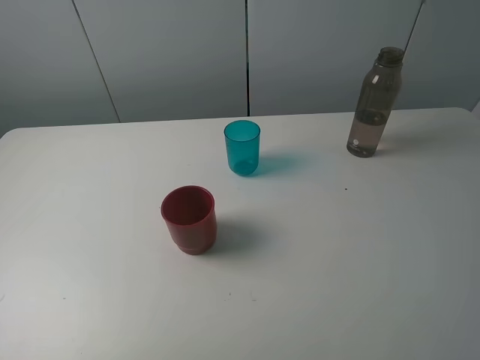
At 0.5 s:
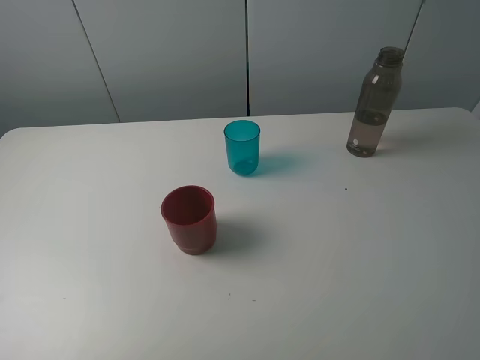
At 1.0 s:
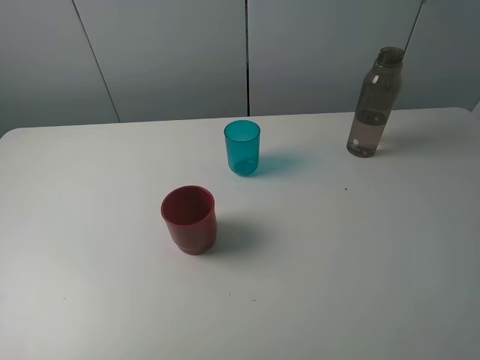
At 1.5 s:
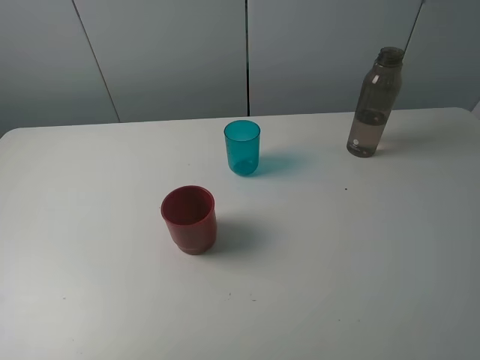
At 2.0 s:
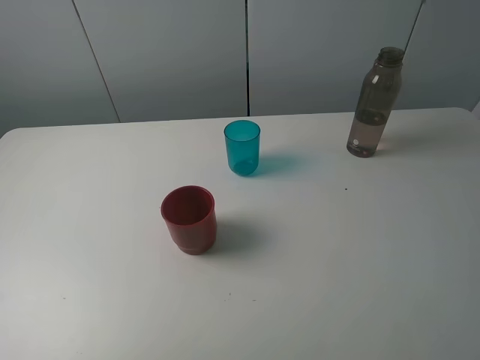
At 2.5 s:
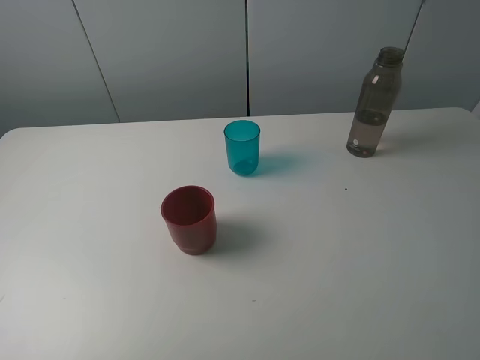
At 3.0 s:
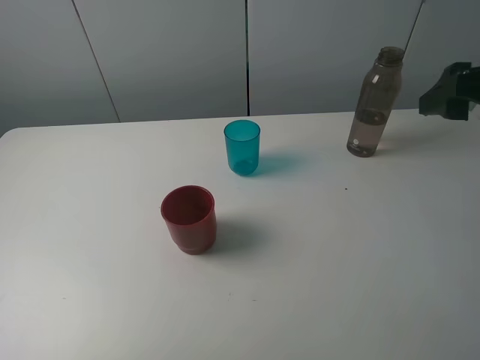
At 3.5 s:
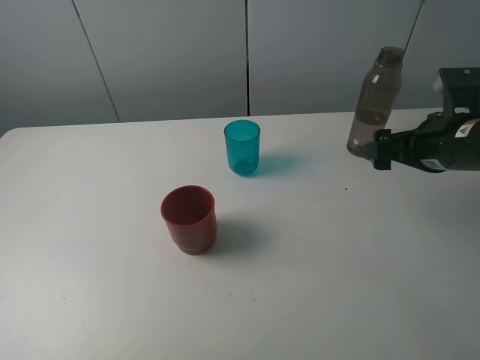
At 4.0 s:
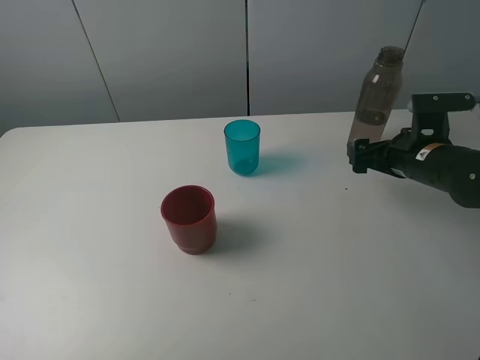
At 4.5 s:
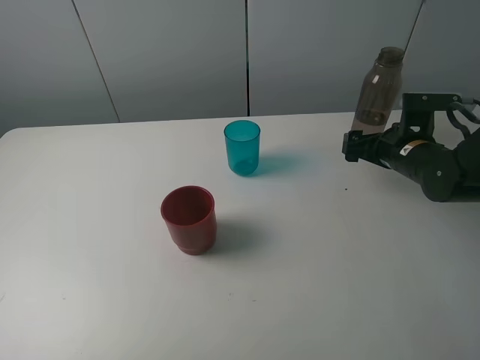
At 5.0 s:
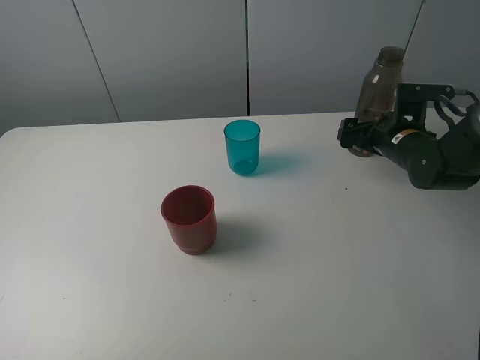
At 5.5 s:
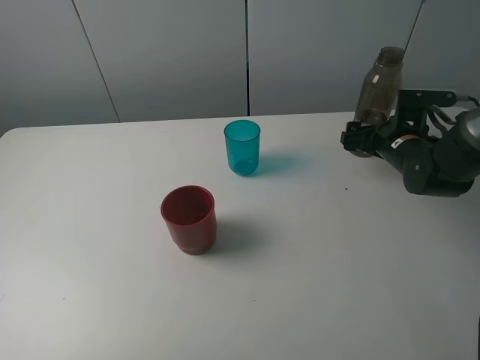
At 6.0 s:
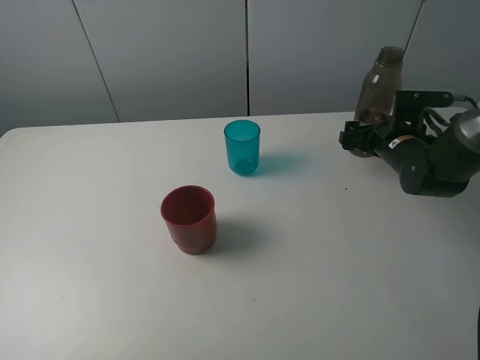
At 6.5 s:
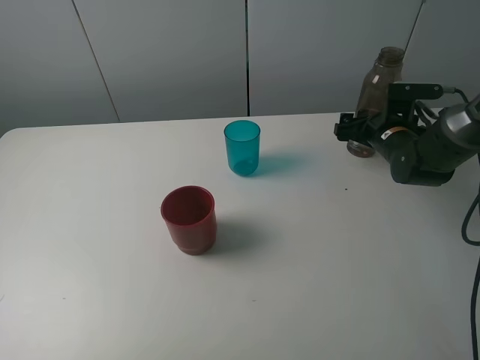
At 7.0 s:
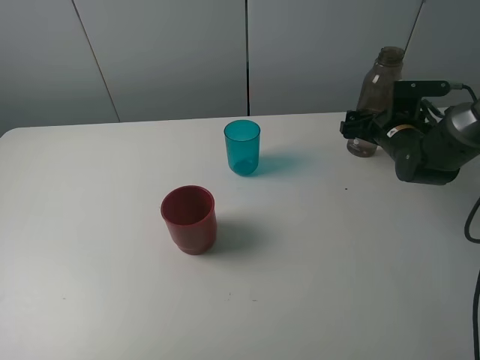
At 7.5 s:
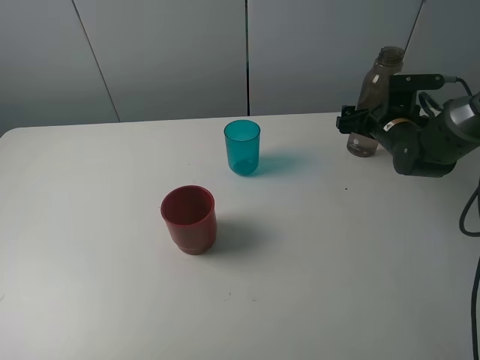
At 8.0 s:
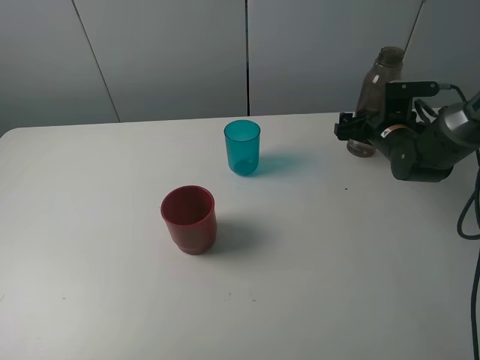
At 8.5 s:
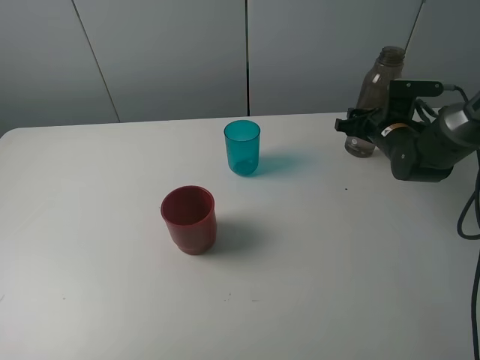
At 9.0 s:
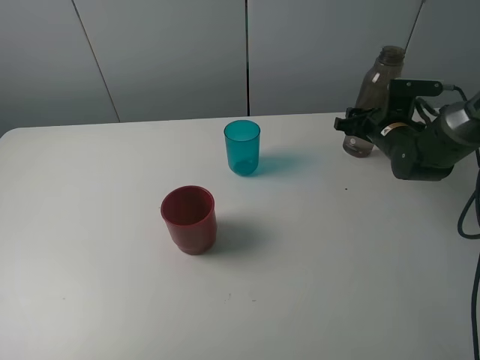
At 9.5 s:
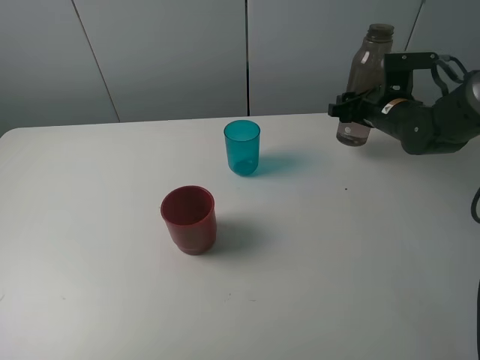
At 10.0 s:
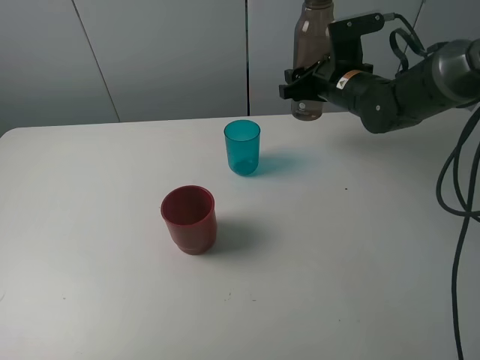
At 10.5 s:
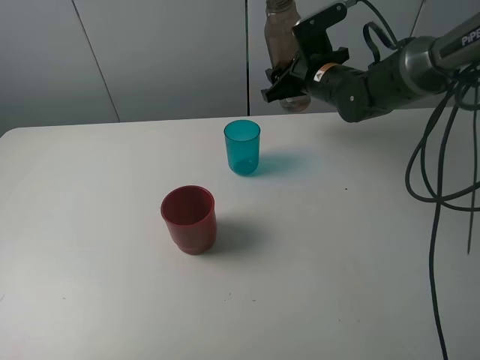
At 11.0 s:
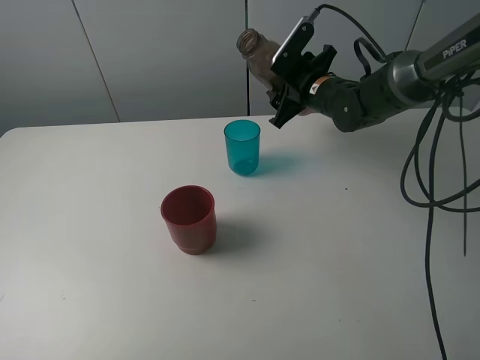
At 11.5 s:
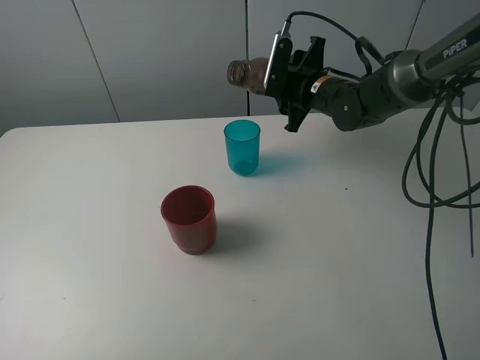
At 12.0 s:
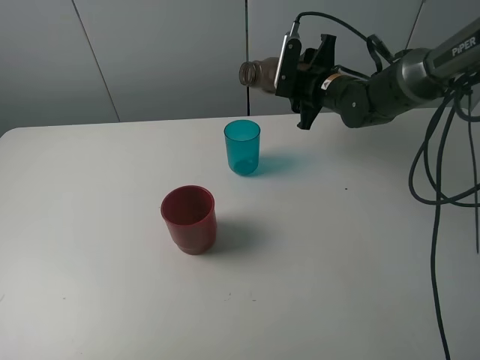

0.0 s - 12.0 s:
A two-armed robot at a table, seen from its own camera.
Task of the whole recording: pick up the bottle and pour water into the cup, then pick up the cup containing water and pour it into another cup.
Step, 0.0 s - 8.5 s: Grasp the brown bottle with the right gripper.
0.0 s - 2.0 s: The two grippers keep their place.
2.0 s - 4.0 s: The right gripper is displaced forward and downward by some 35 cm.
4.0 s - 6.0 s: The right gripper shifts about 5 cm forward.
6.0 s - 8.0 s: The grippers move only a little.
8.0 s - 10.0 s: The right gripper travels to the left and upward by some 15 cm, and closes its fingers.

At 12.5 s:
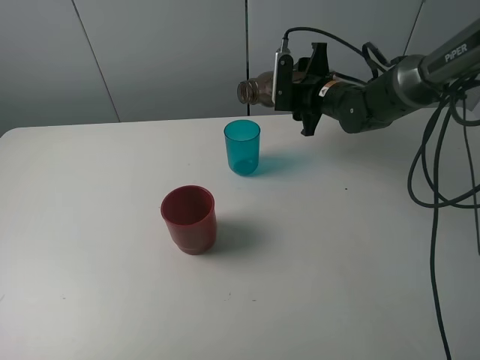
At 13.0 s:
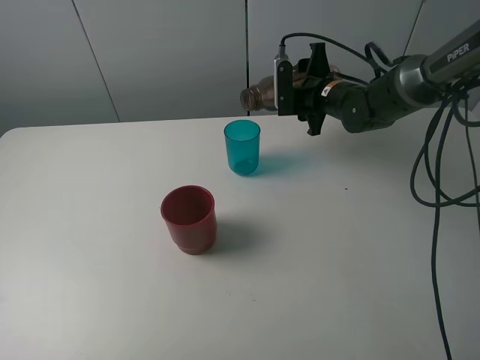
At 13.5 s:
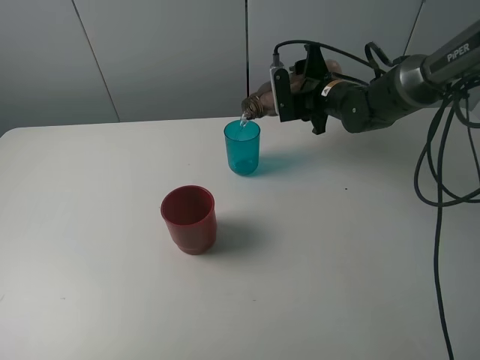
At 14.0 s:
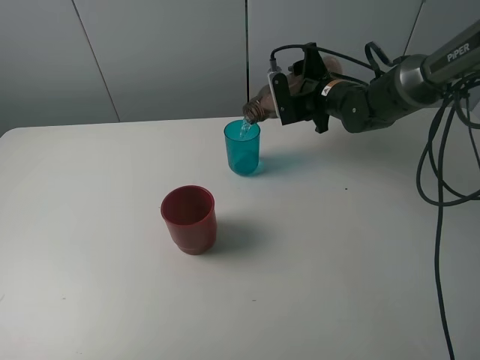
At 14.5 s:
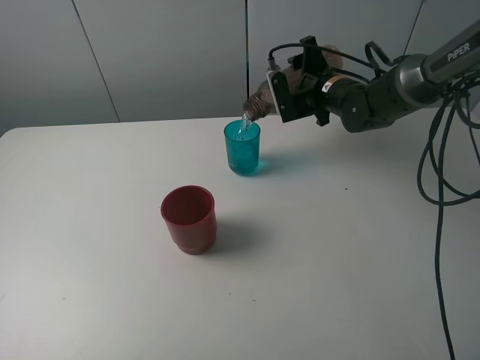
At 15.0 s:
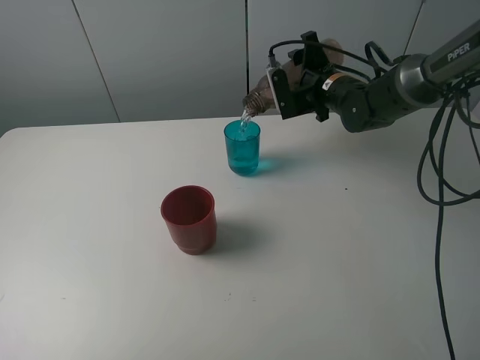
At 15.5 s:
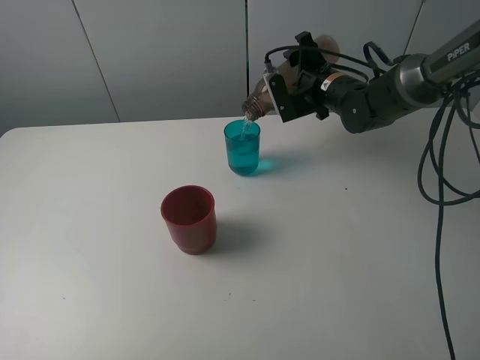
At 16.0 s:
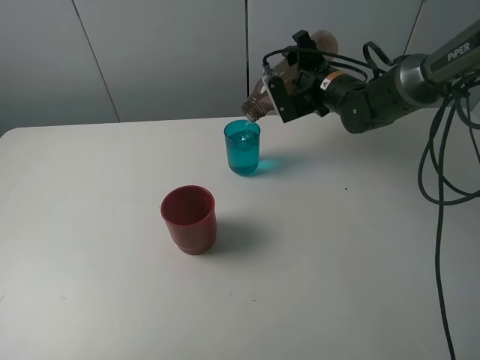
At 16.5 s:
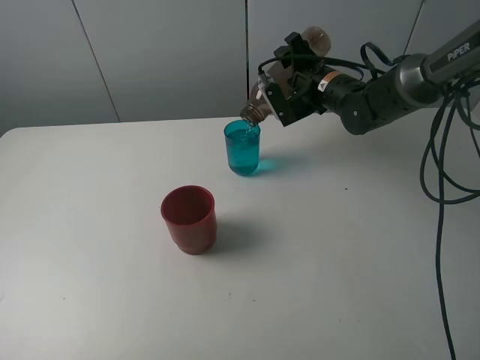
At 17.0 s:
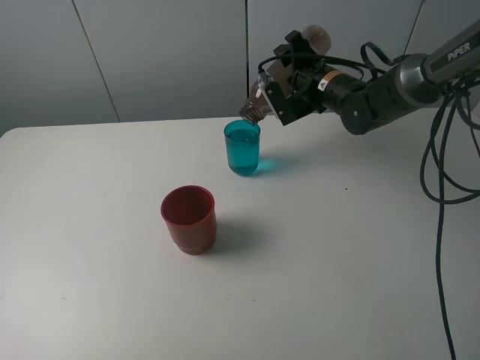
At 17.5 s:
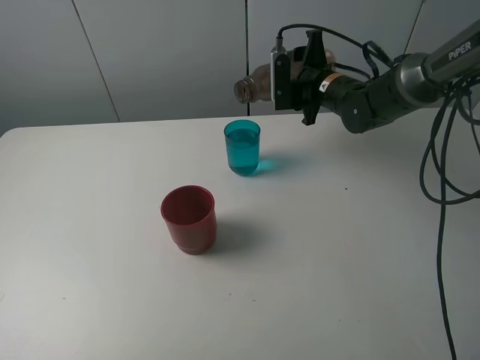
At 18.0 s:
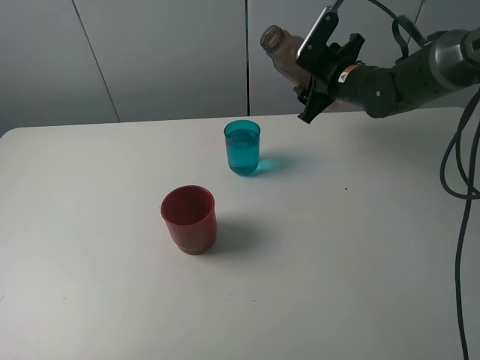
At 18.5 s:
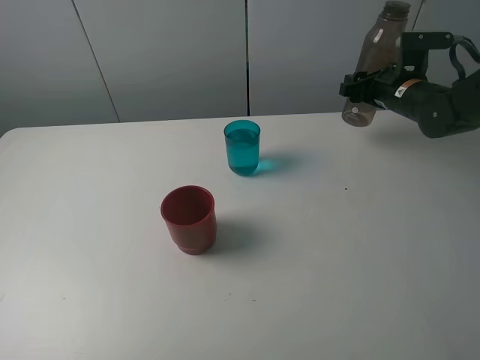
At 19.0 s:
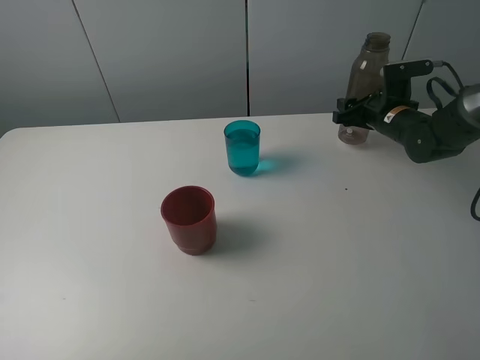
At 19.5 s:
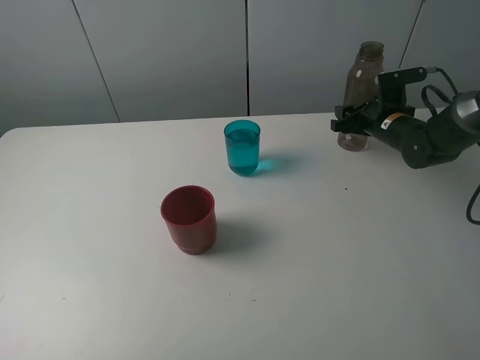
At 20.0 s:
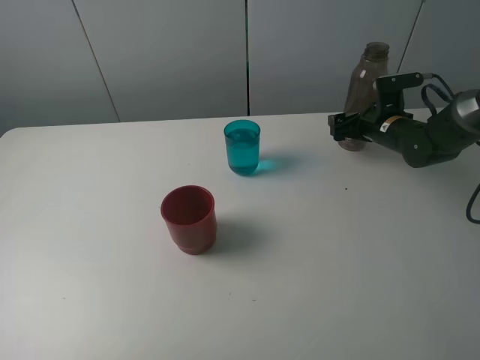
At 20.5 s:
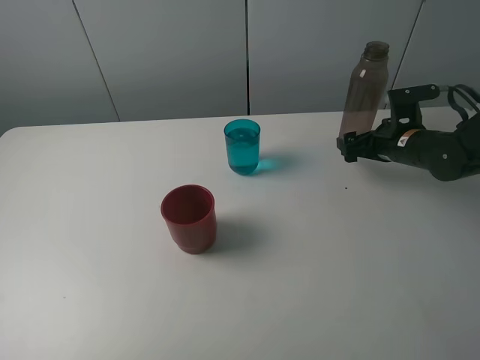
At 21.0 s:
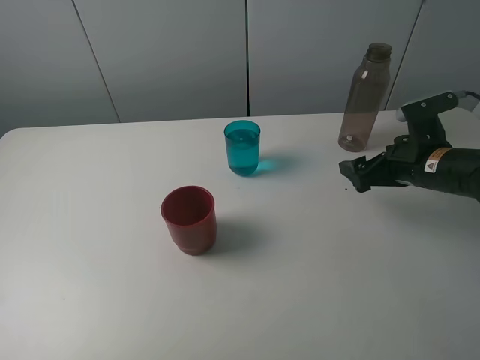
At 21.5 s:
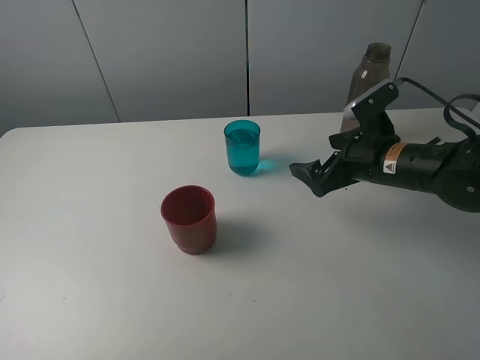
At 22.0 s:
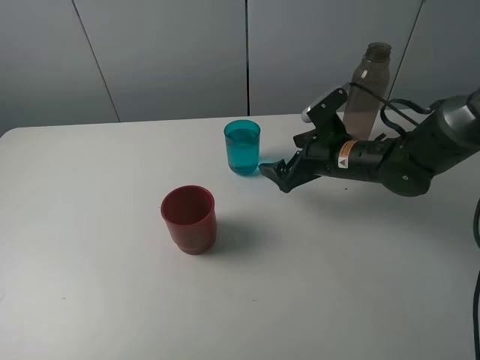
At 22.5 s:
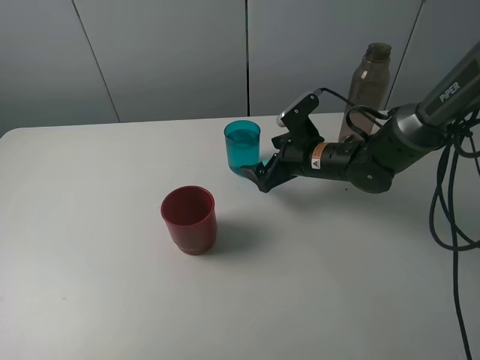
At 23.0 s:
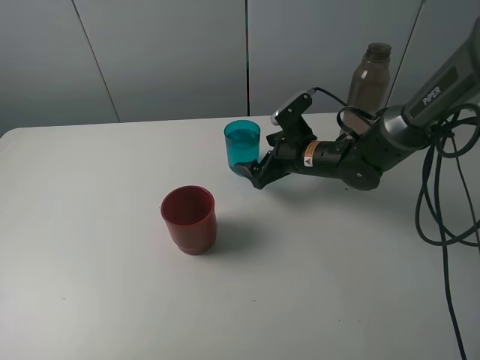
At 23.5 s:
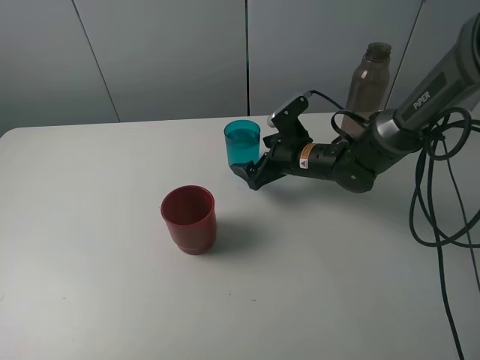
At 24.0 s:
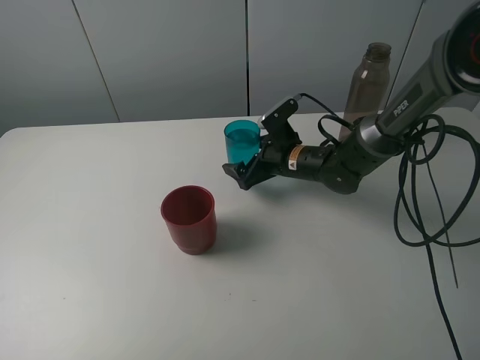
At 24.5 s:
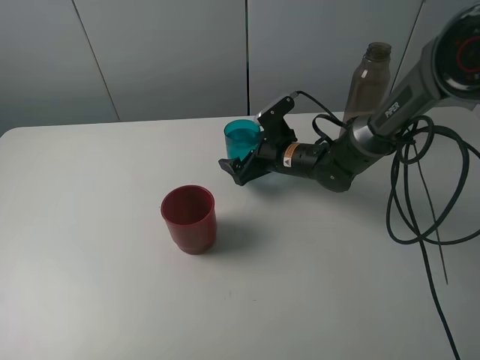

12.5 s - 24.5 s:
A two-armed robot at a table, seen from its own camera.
Task of the whole recording: pick up the bottle and pour water into the cup, then pick up the cup containing water and pour it into another cup.
Step, 12.5 s - 17.0 s: Pour water from brown bottle to blue cup with the right gripper.
Step, 17.5 s - 20.5 s: Place the brown bottle with the right gripper.
14.5 s - 16.5 s: The grippers make only small movements.
16.5 s - 18.5 s: The right gripper moves to the right, about 10 cm.
18.5 s - 20.5 s: The right gripper is displaced backward by about 5 cm, and opens its fingers.
20.5 s - 22.5 s: The right gripper travels to the left by some 15 cm.
22.5 s - 24.5 s: The right gripper changes place by some 5 cm.

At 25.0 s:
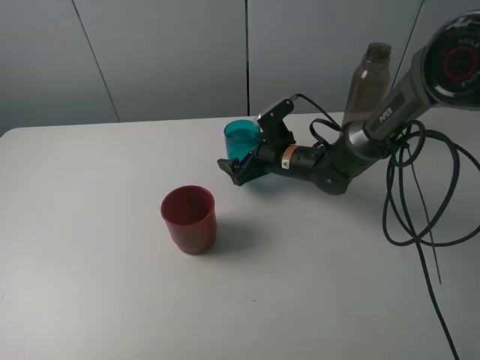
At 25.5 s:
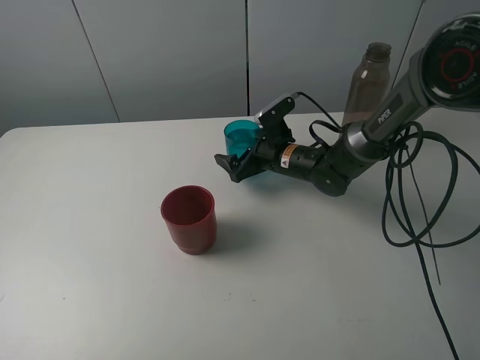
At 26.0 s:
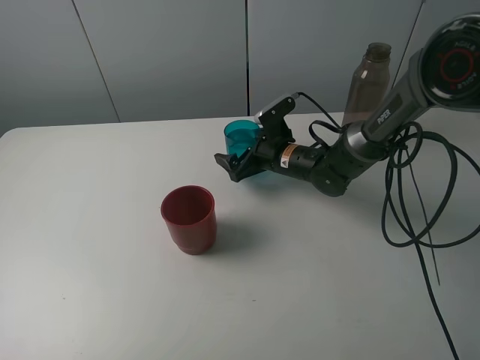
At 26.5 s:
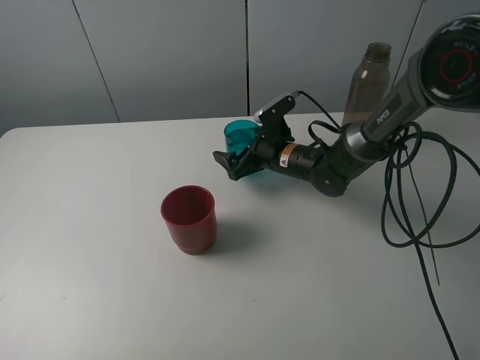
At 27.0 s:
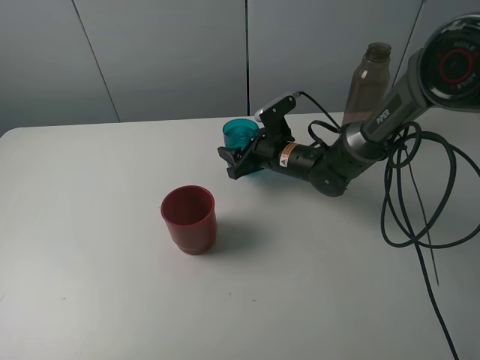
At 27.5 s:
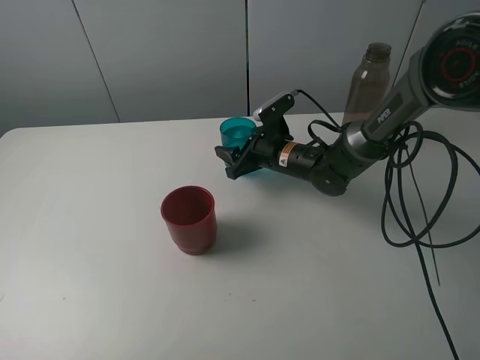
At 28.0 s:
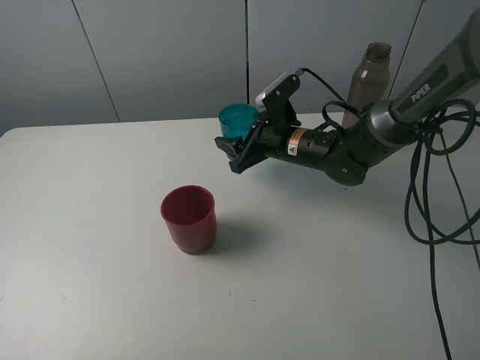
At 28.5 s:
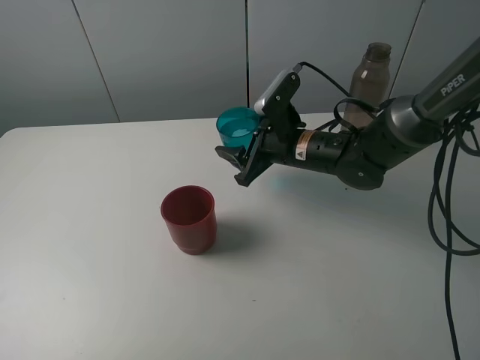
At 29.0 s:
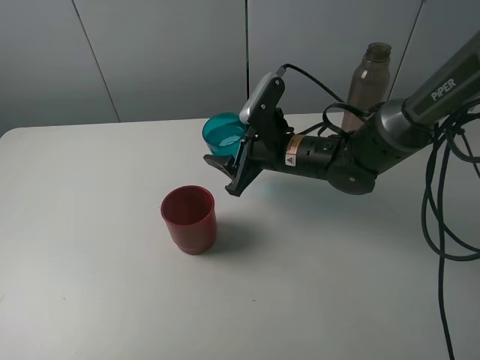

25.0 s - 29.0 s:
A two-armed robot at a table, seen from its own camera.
Task of the whole recording: pick up the bottle and pour water into the cup, then pick up the cup containing water and pour it into another cup.
25.0 s - 27.0 s: The right gripper closes up.
27.0 s - 29.0 s: The right gripper moves upward and backward, roughly 10 cm.
